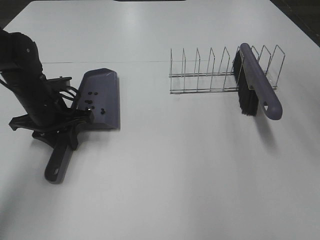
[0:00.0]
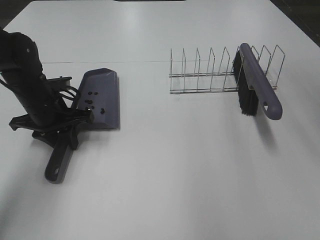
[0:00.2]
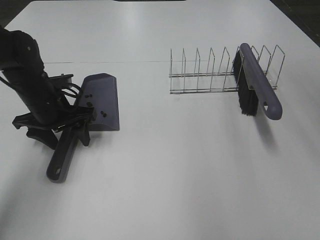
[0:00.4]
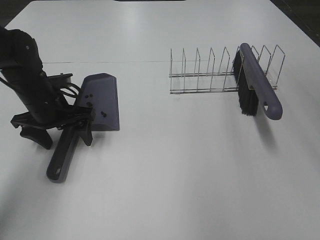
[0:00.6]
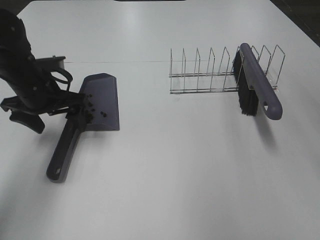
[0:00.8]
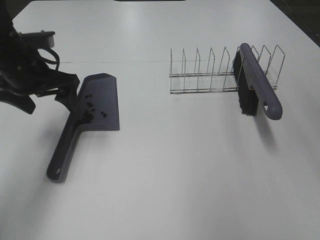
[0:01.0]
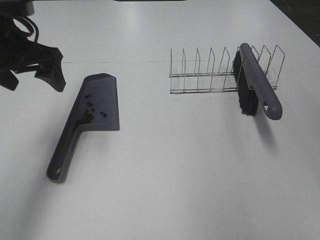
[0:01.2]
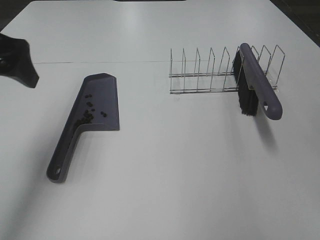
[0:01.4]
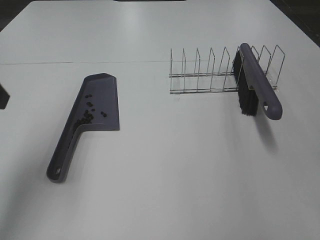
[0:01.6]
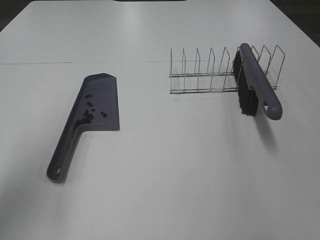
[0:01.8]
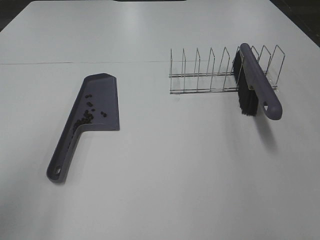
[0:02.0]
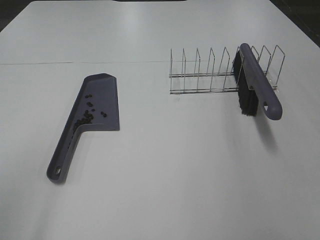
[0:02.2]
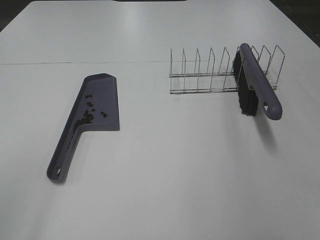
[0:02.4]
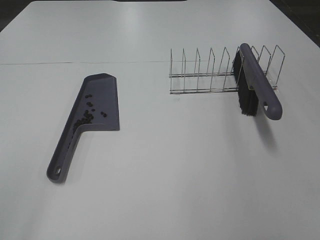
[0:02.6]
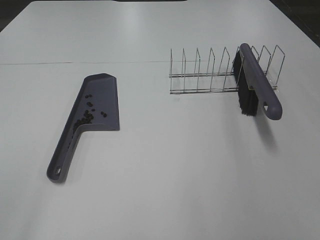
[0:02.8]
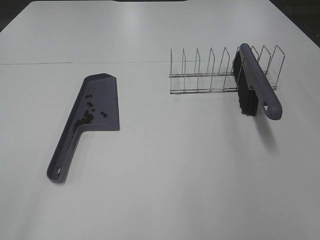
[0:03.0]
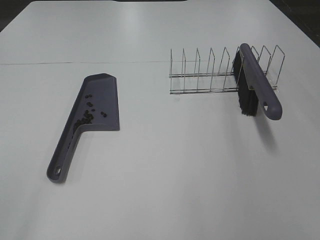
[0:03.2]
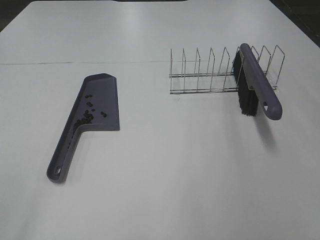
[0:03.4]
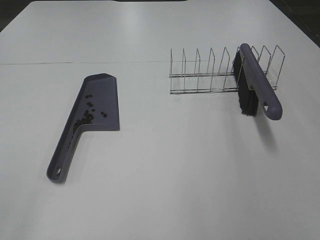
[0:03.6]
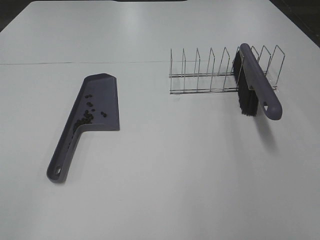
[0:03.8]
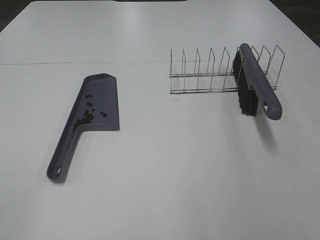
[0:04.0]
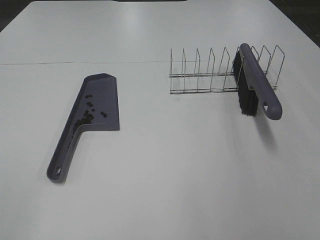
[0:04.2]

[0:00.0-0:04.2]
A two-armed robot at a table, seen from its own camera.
Task of the whole recording: Sweep Coffee Bean.
0.0 to 1.4 s: The left gripper travels upward and backward by about 20 cm, and opens its fingers.
1.4 to 2.8 s: The left gripper is displaced backward by some 25 cm.

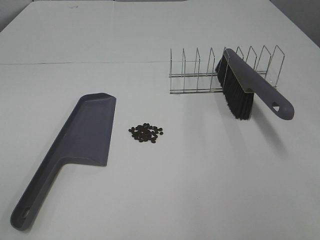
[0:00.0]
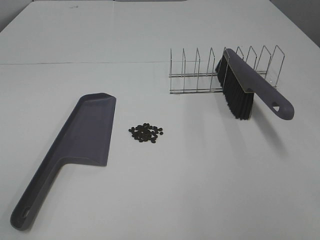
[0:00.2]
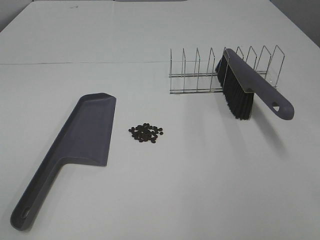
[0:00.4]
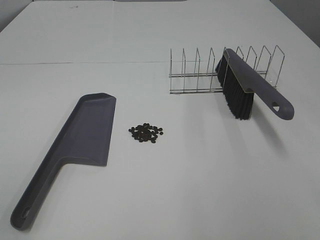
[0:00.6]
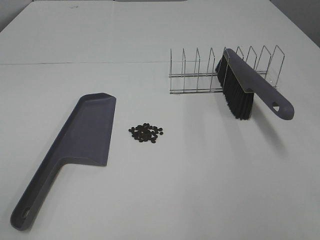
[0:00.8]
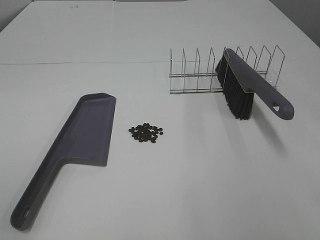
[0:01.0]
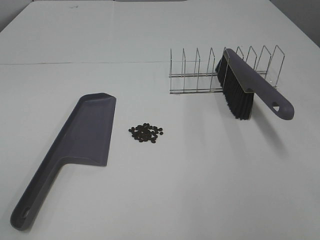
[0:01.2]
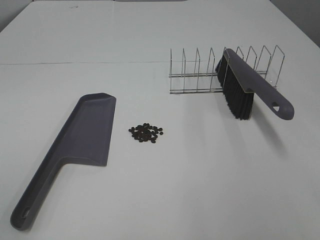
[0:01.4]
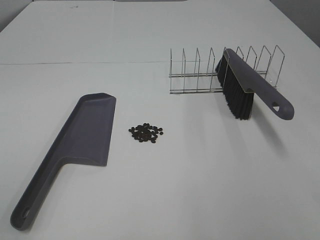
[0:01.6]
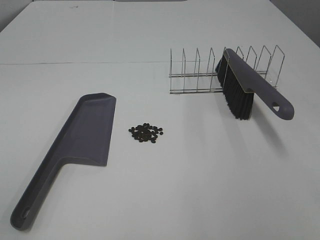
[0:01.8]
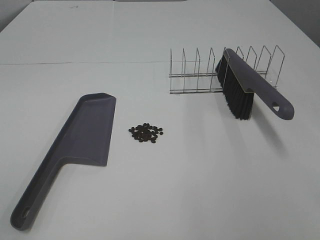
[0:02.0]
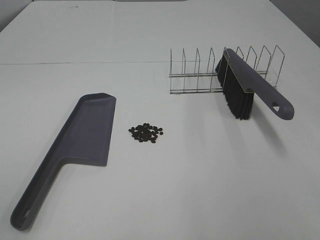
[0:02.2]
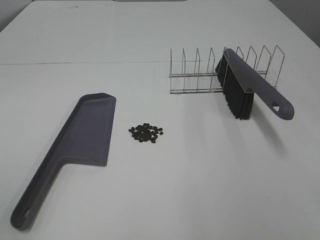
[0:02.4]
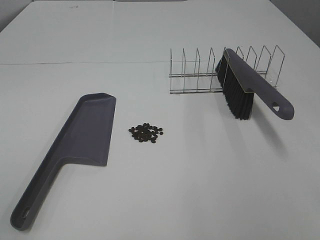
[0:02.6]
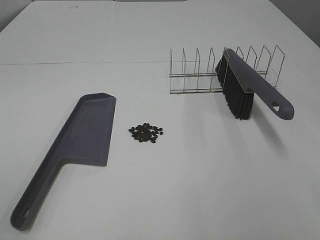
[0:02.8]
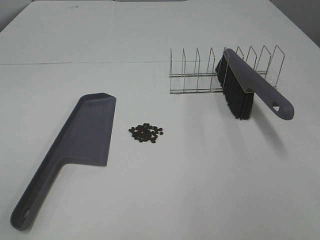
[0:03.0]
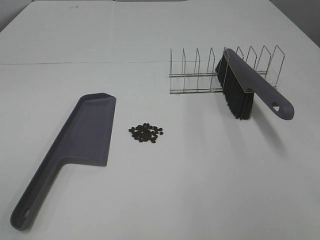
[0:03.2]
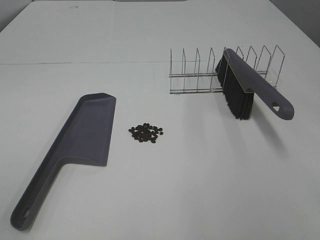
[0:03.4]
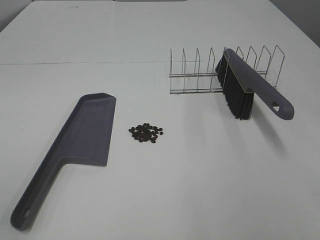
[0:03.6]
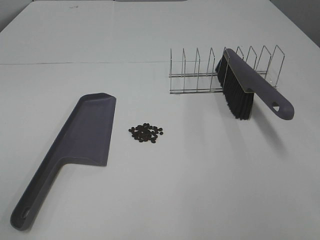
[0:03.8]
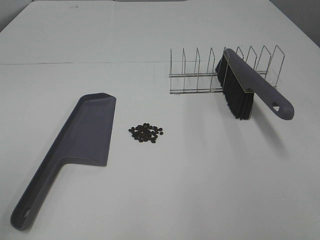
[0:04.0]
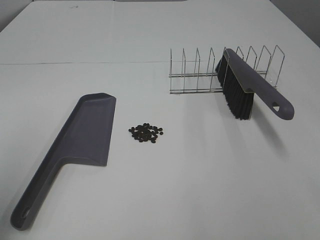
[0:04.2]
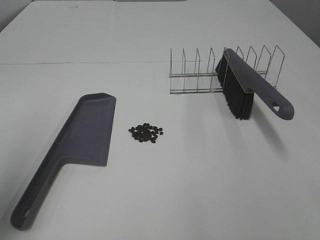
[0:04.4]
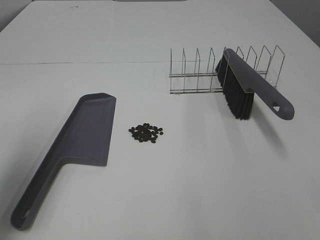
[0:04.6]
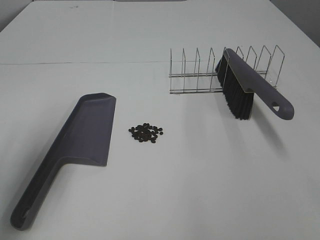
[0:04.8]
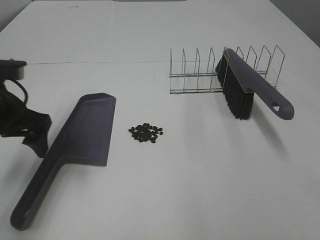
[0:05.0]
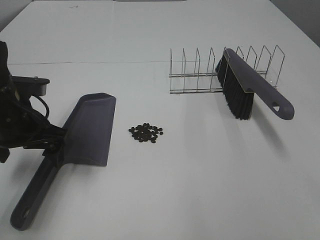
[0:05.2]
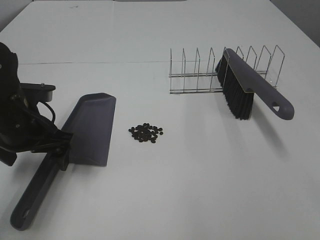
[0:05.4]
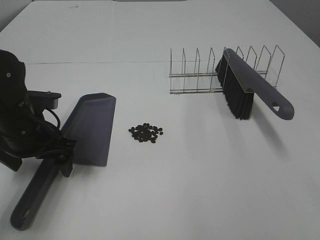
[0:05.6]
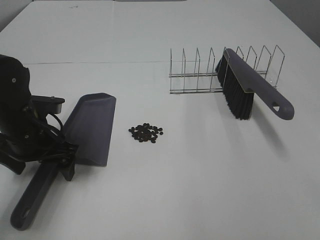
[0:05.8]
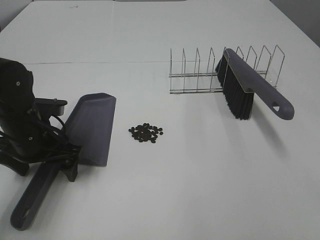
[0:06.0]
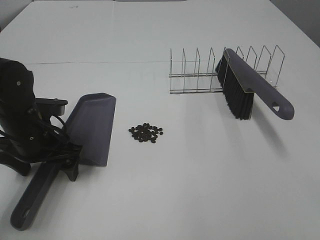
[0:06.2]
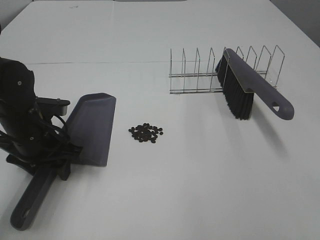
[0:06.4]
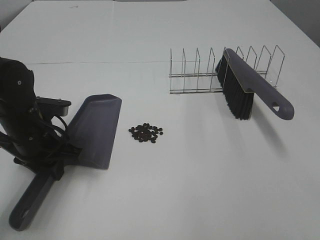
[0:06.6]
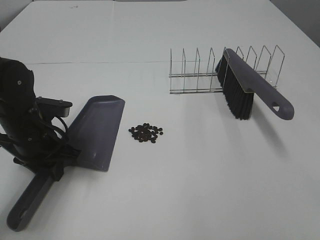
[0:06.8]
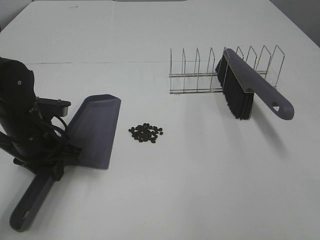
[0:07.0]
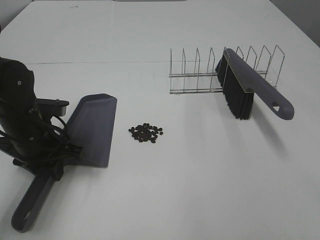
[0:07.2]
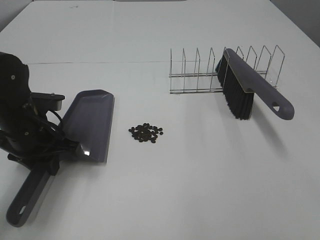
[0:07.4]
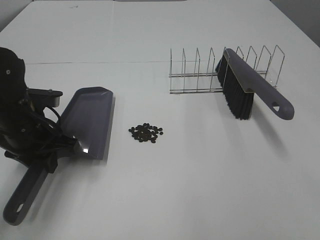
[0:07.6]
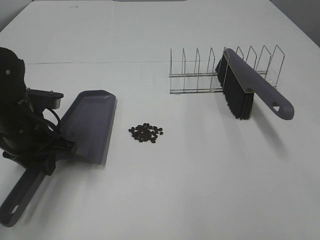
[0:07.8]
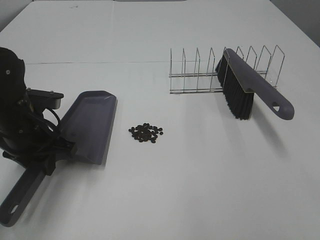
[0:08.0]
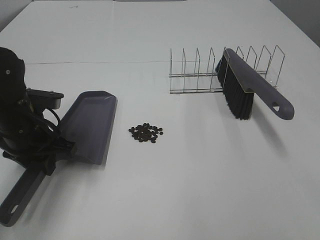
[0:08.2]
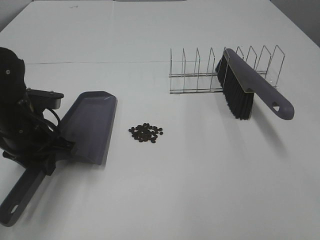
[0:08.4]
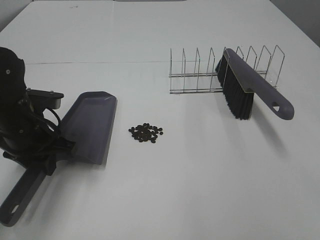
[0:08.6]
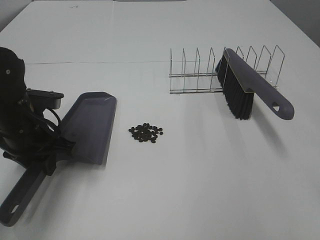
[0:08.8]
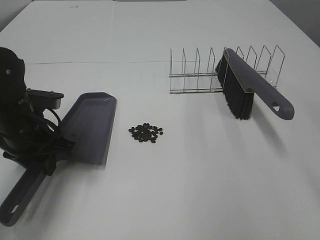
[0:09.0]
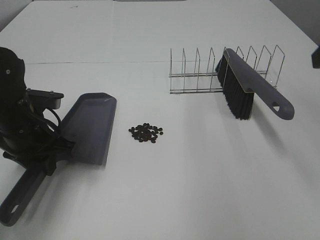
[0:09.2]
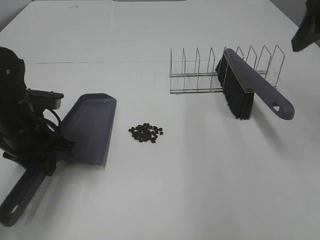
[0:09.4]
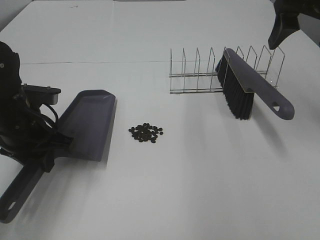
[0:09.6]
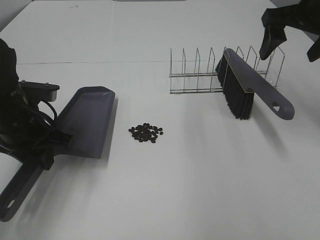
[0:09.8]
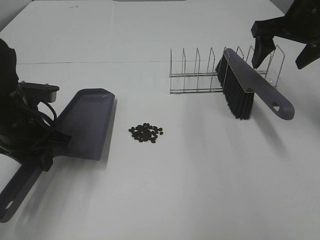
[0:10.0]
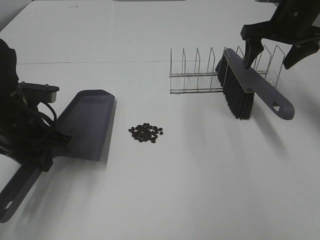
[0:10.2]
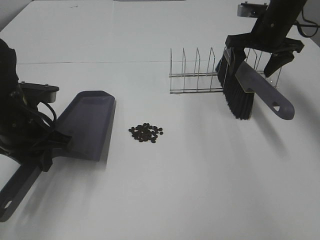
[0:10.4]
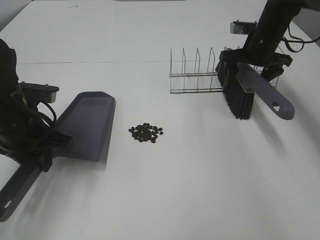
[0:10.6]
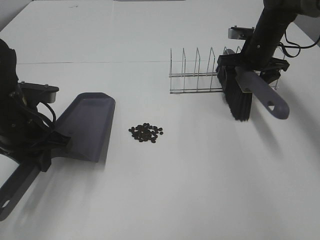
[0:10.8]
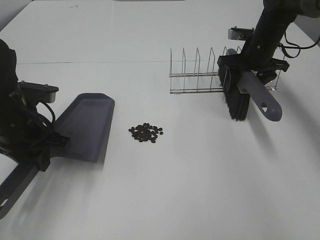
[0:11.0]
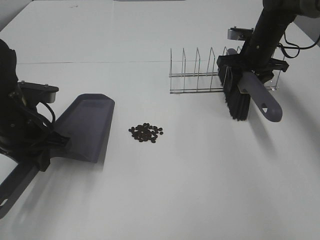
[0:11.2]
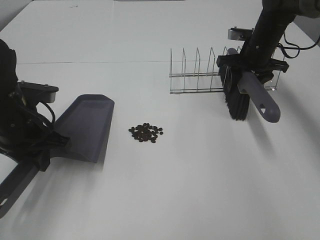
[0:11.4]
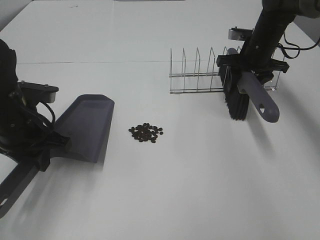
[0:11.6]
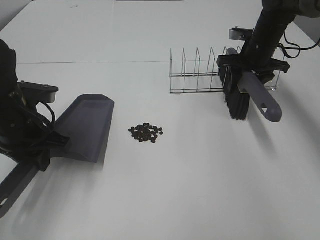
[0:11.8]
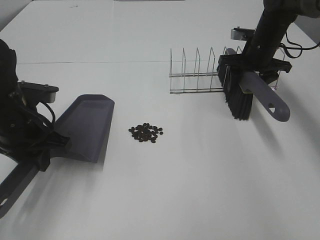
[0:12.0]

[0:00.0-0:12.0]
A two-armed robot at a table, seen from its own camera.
Task of the whole recording: Sweep Coffee Bean.
Step, 0.0 to 6.6 s: Left hand: grab the dustpan.
0.0 to 3.0 s: Neither gripper changes place.
3.0 to 4.4 s: The left gripper goes approximately 15 cm forward.
4.4 to 6.0 s: The left gripper goes about 30 cm downward, forward and to the right.
6.0 to 7.6 s: The left gripper closes up.
9.0 to 10.4 s: The right gripper moves forward and downward, some 35 cm.
10.4 to 12.0 s: The right gripper moves downward, some 5 cm.

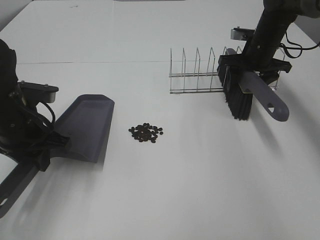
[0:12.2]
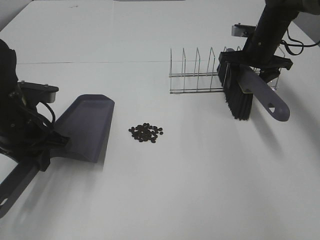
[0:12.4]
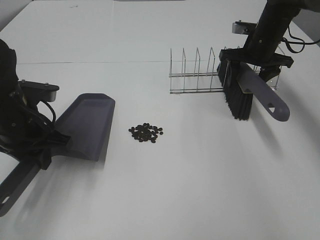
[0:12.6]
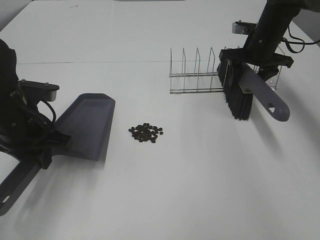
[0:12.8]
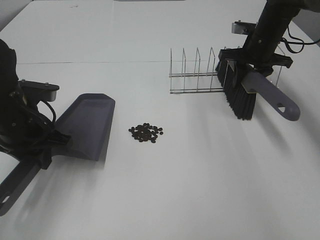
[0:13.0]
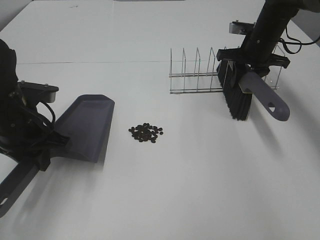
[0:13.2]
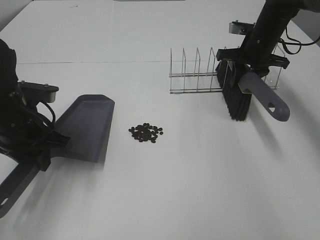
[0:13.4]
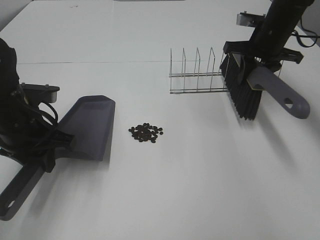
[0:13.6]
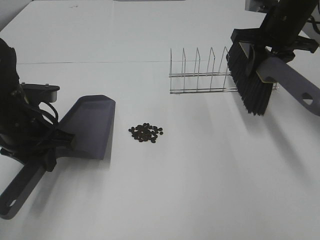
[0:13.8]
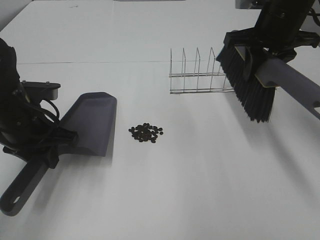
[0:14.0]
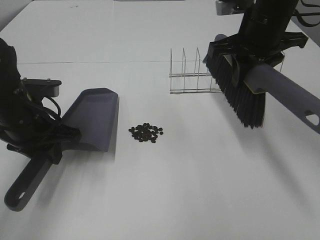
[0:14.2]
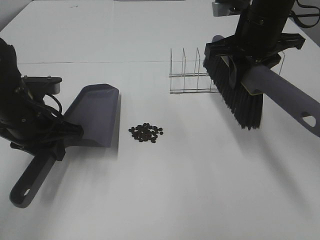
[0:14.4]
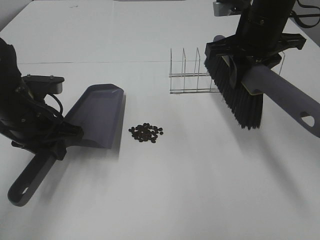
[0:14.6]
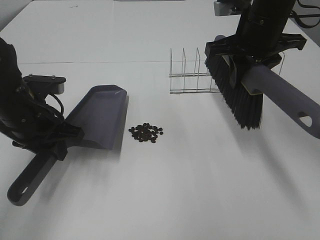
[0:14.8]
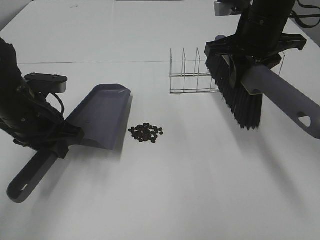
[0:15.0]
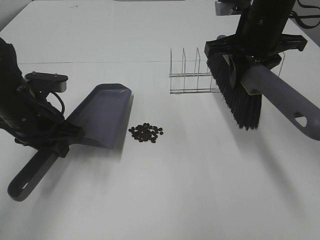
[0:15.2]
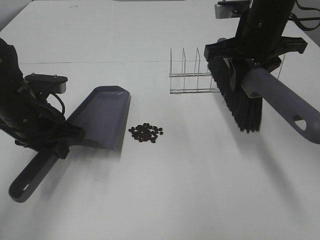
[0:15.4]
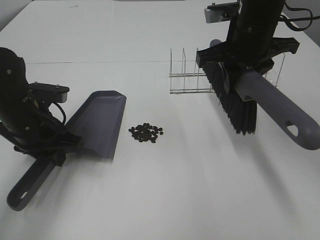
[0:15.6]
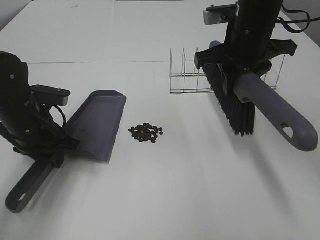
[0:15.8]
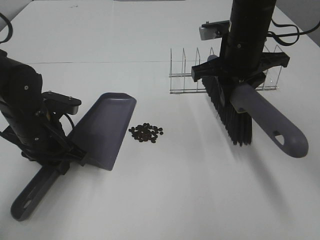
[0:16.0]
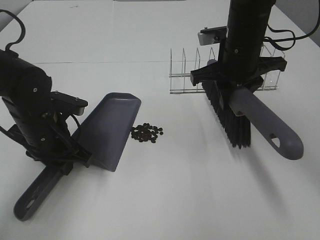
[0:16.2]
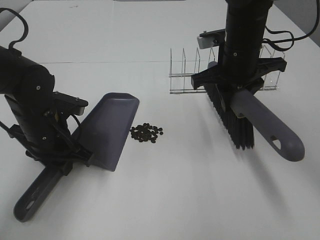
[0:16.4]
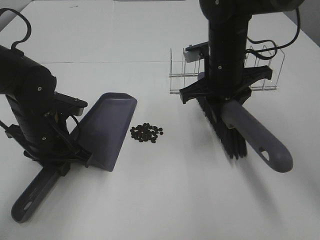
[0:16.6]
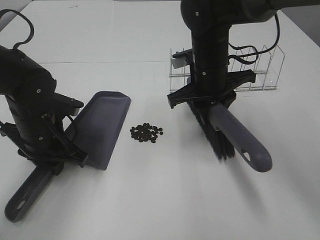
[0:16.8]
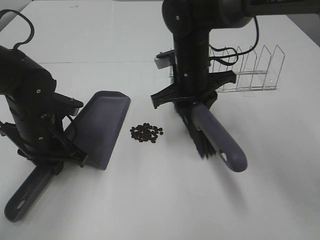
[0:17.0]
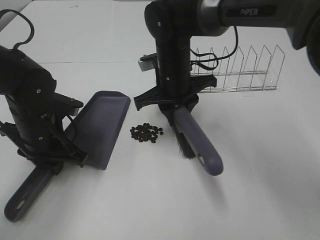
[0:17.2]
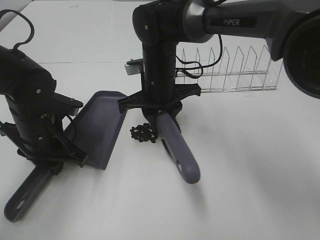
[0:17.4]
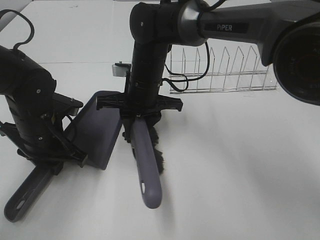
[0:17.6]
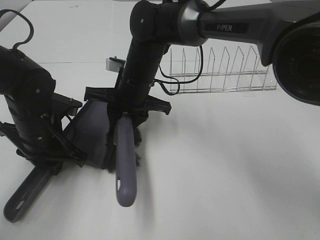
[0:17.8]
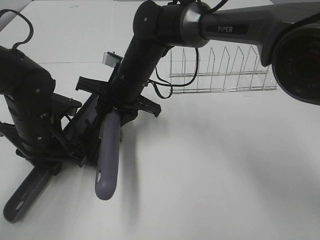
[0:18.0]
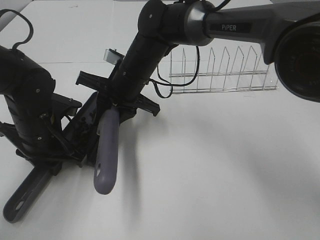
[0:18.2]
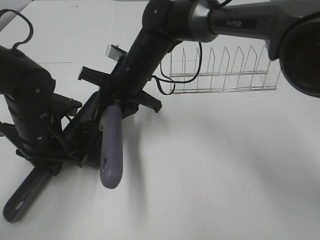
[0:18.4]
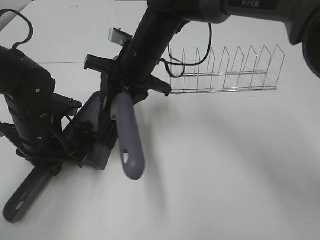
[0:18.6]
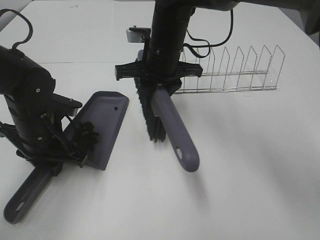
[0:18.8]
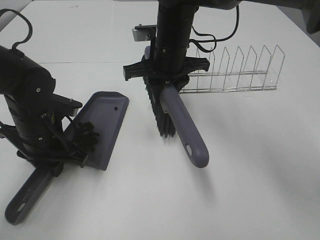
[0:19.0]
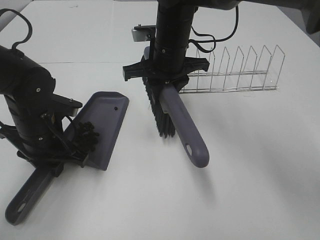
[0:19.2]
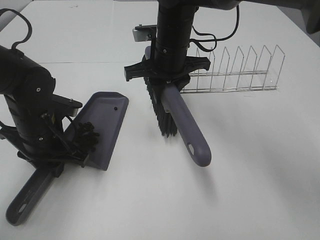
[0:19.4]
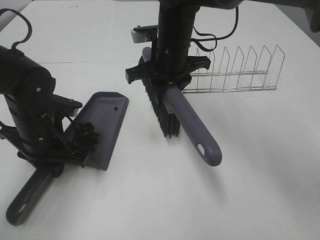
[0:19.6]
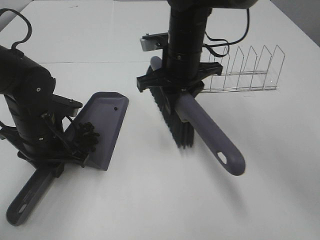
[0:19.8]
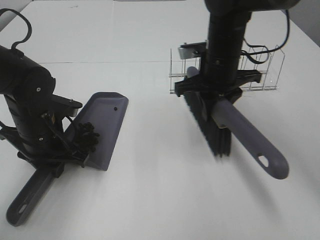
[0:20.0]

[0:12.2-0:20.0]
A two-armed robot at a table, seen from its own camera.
Task of the whole recording: Sweep Coffee Bean.
Step, 12.2 to 16.0 s: Left hand: move the dustpan to the left side of the coffee beans.
Step, 13.2 to 18.4 s: Right hand:sweep the coffee beans into the dustpan.
12.2 to 13.8 s: The right gripper moves upward and backward, approximately 10 cm, and closes up.
13.8 to 15.4 s: The right gripper travels to the left and backward by some 10 cm.
15.4 to 16.8 s: The right gripper shifts some 10 cm downward and to the left.
16.8 to 18.4 s: The right gripper travels to the left by some 10 cm.
18.4 to 20.0 s: The right gripper moves to the right, some 15 cm.
